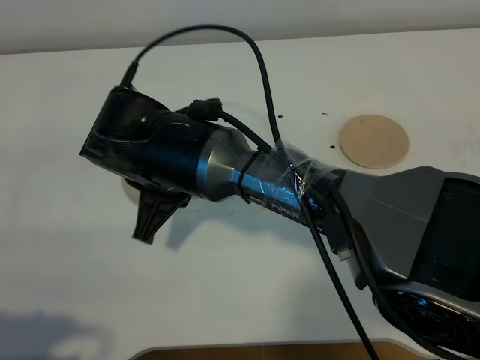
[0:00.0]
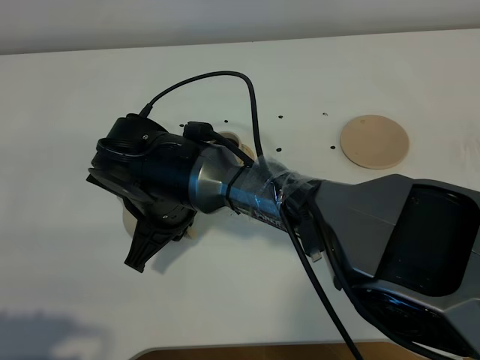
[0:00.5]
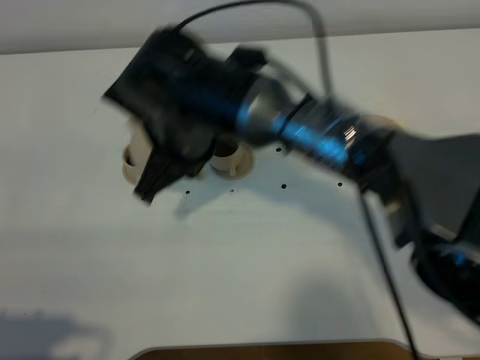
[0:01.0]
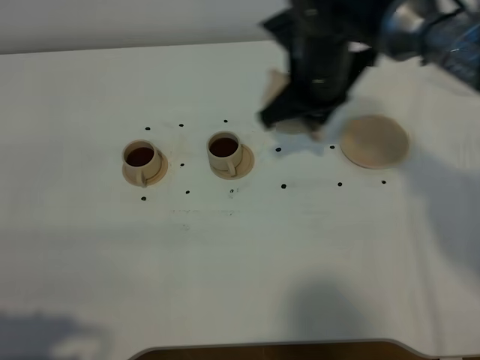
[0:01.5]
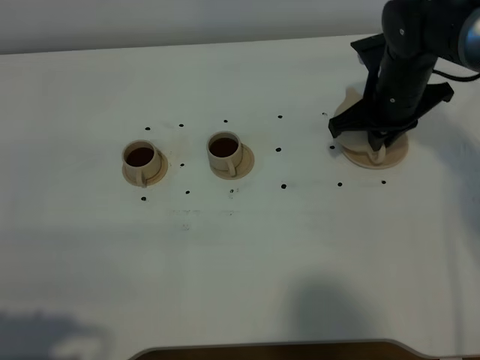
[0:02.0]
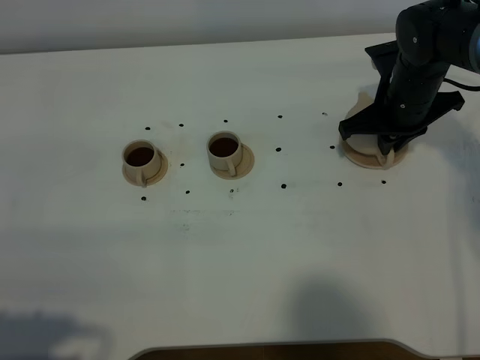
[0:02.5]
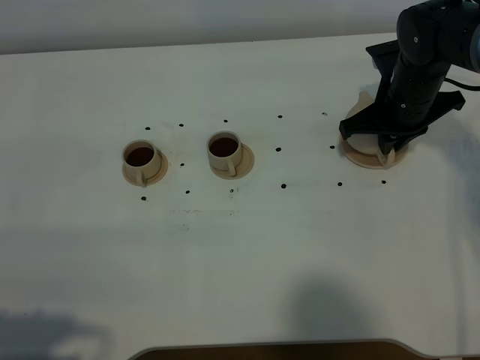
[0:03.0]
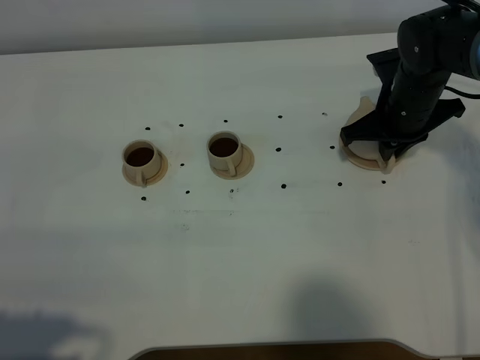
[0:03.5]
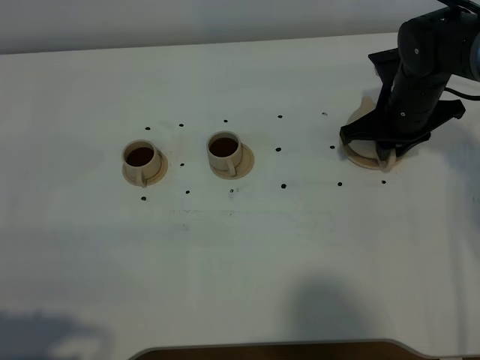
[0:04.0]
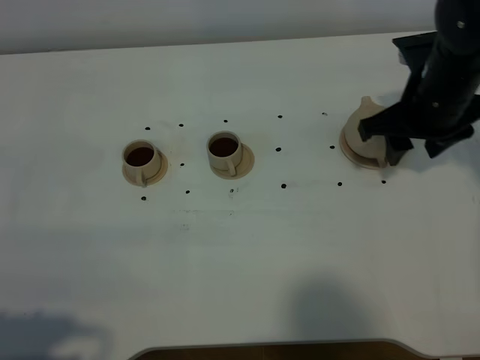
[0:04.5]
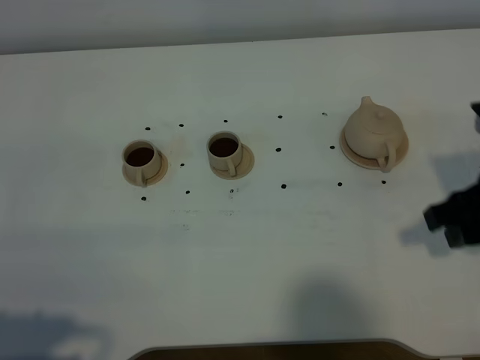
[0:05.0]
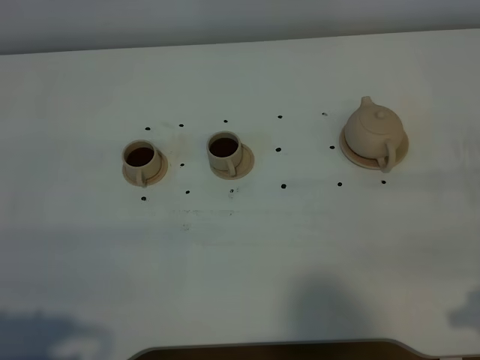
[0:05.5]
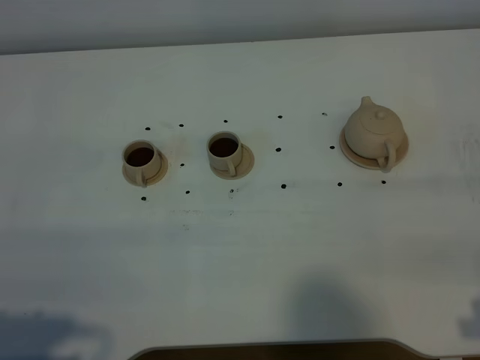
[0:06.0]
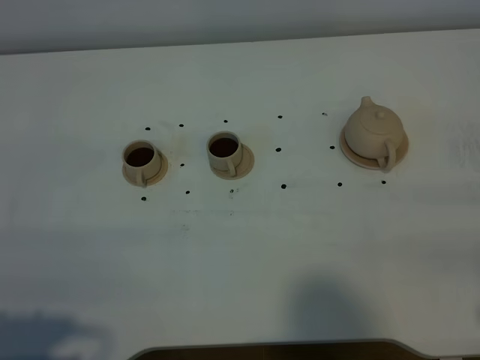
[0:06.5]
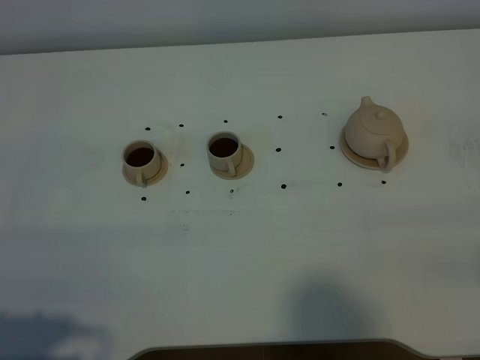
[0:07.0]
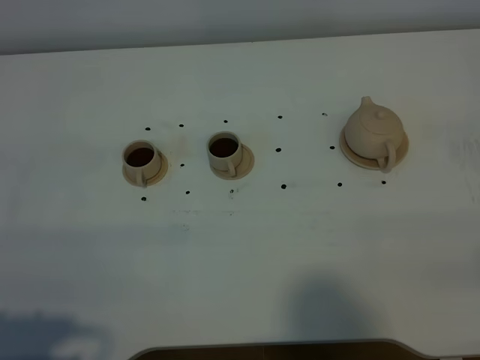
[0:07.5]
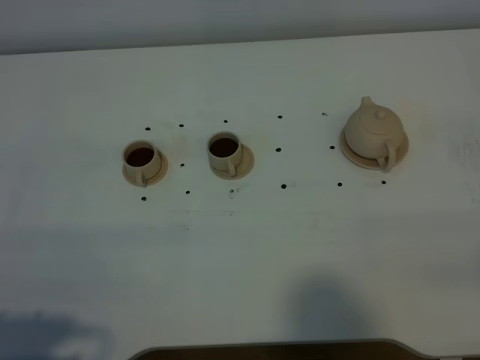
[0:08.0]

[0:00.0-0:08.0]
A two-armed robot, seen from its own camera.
Task of the whole recording: grasp the brown teapot and pour the tea into the two brown teacups one by one, put the brown teapot back in its original place.
0:00.0 to 0:02.0: The right gripper goes about 30 cm to the right.
0:02.0 to 0:04.0: The right gripper opens its fingers.
0:04.0 to 0:06.0: The right gripper travels backward by some 35 cm, and opens its fingers.

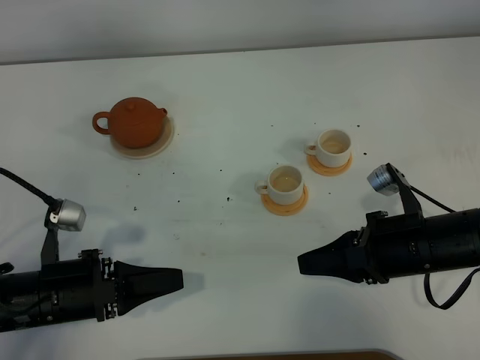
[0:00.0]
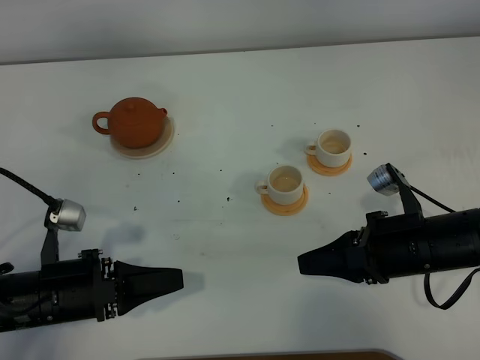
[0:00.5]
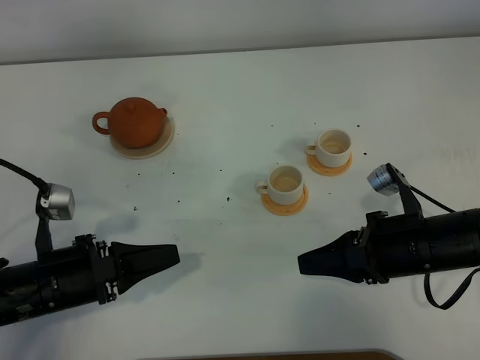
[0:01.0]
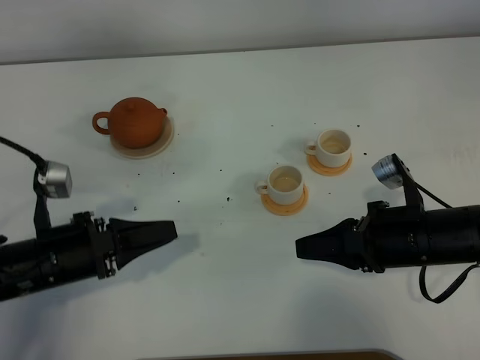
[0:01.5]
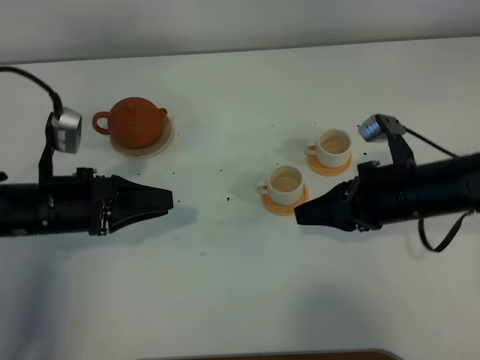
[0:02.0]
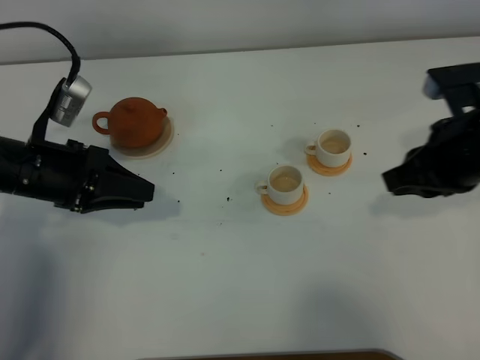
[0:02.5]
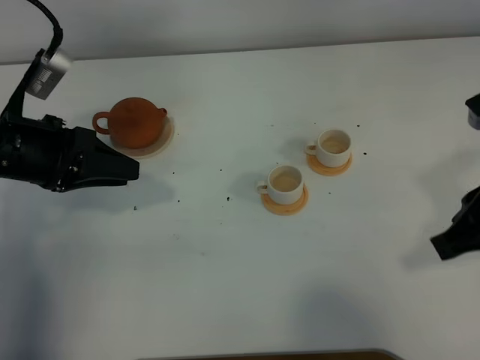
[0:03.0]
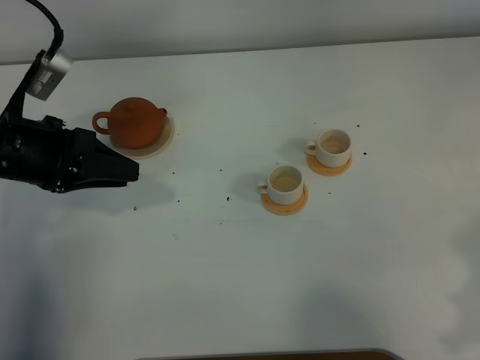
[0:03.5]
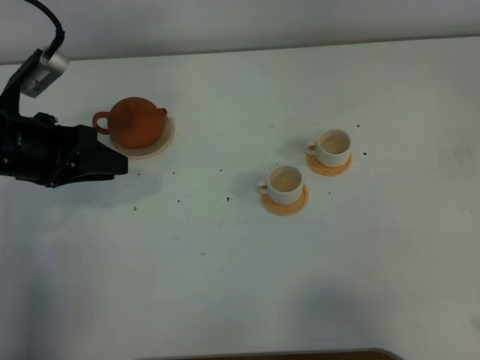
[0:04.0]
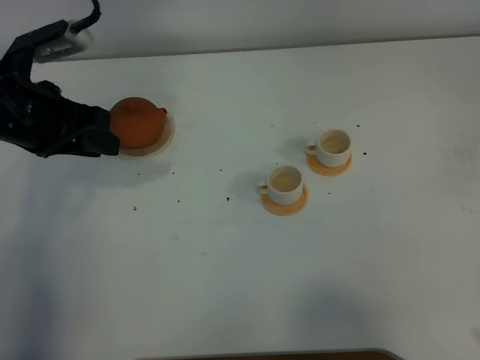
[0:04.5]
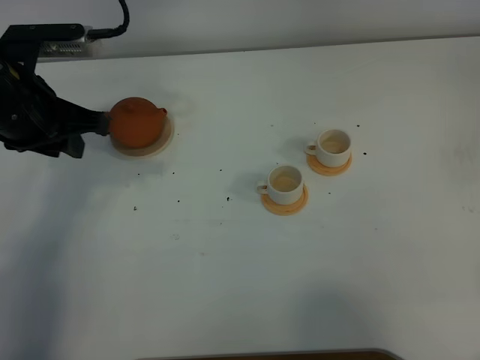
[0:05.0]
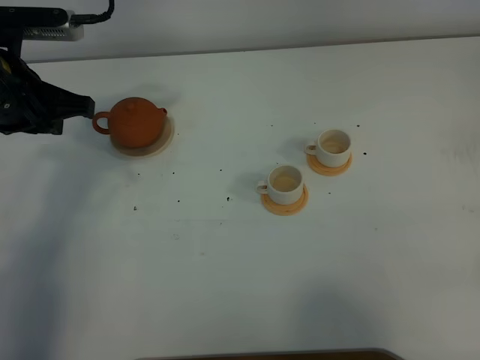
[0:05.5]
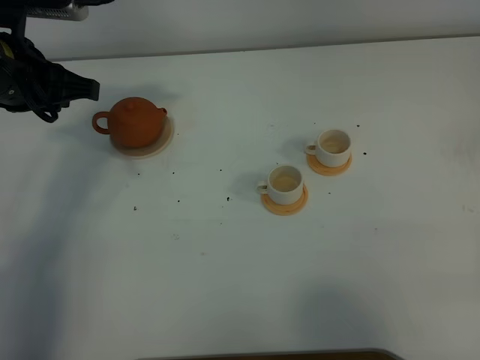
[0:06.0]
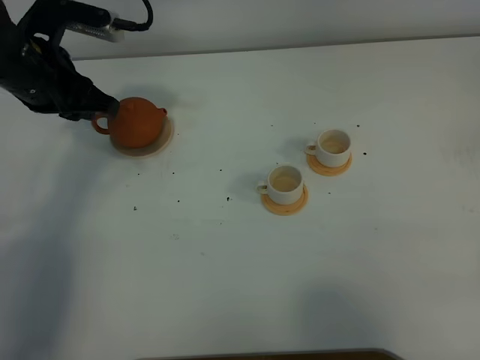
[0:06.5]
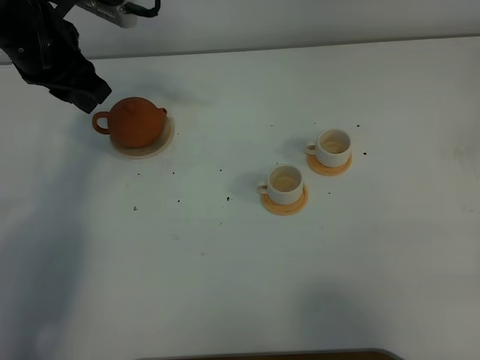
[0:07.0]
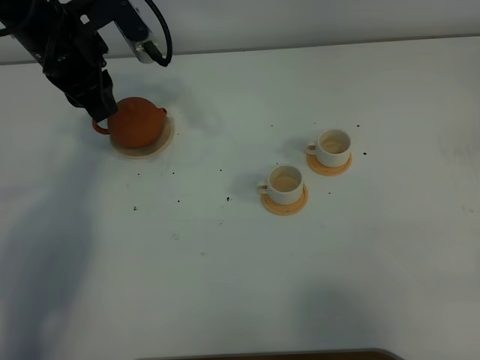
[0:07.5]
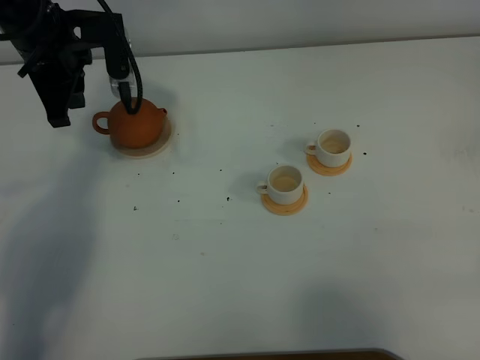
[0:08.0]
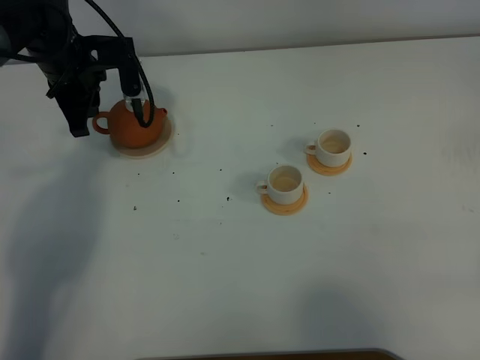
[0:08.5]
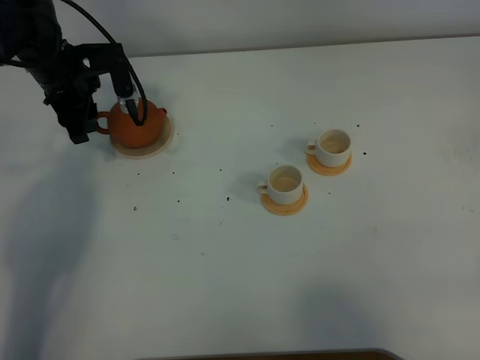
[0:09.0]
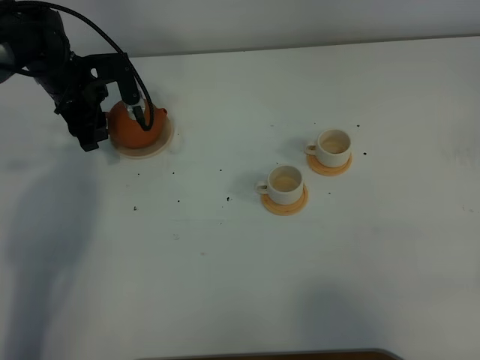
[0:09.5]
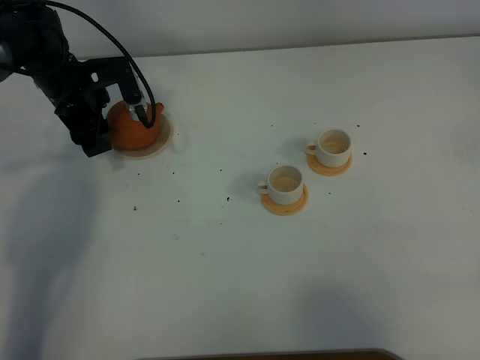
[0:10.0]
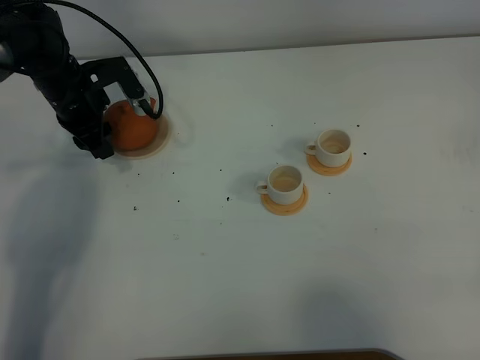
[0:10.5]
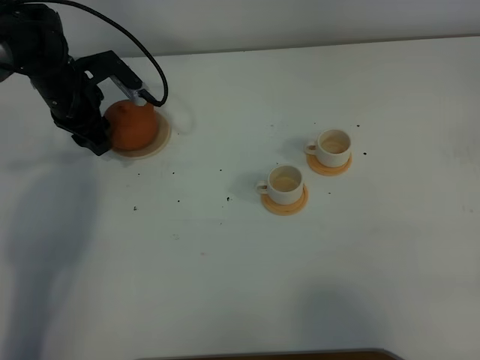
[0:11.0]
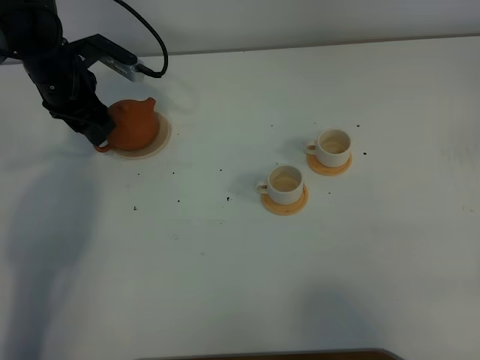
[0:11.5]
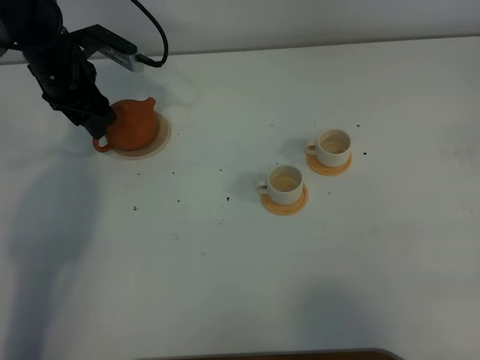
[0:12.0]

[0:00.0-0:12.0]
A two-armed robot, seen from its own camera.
Task of the whole recording: grasp the brown teapot and pour the tea into the two white teacups one by one, put the brown teapot back in its original place.
0:00.0 to 0:02.0: The left gripper moves forward, roughly 10 cm, while the right gripper heads forward, covering about 5 cm.
0:02.0 to 0:04.0: The right gripper heads backward, to the right and upward, covering roughly 25 cm, while the left gripper shifts about 5 cm upward.
0:04.0 to 0:06.0: The left gripper goes approximately 5 cm upward.
0:06.0 to 0:08.0: The left gripper shifts roughly 10 cm forward.
0:08.0 to 0:10.0: The left gripper travels downward by some 10 cm, and opens its fingers.

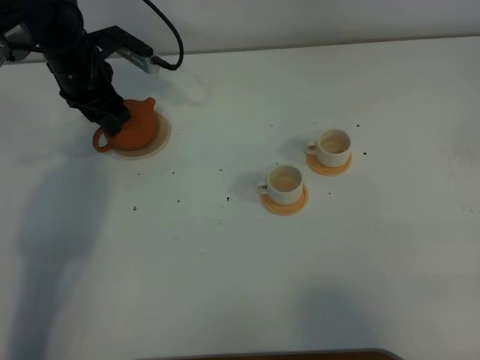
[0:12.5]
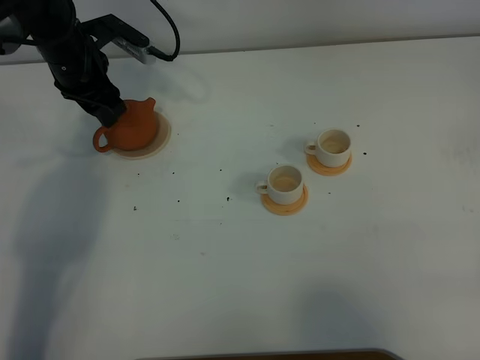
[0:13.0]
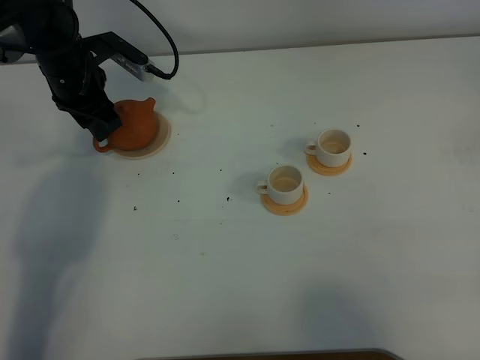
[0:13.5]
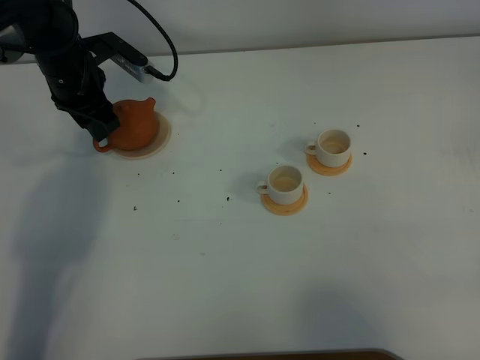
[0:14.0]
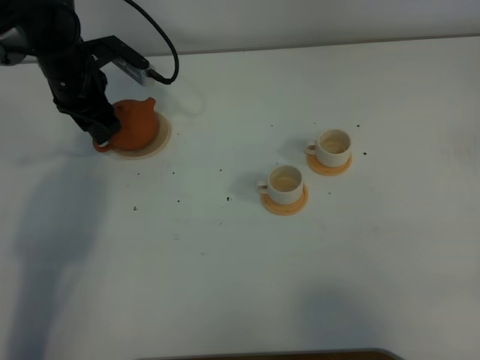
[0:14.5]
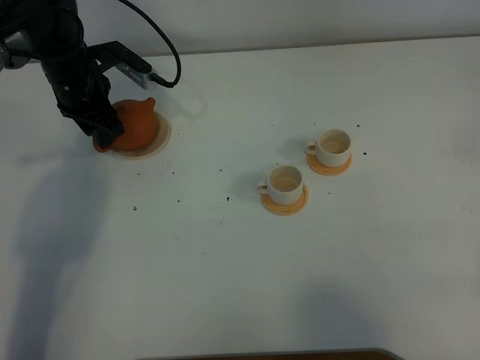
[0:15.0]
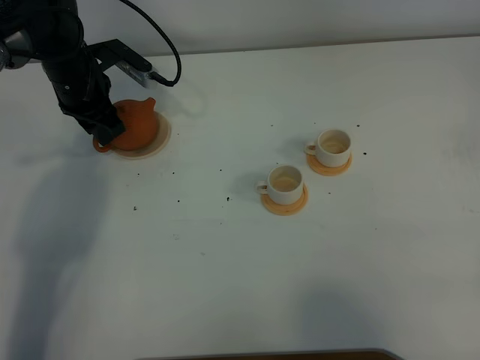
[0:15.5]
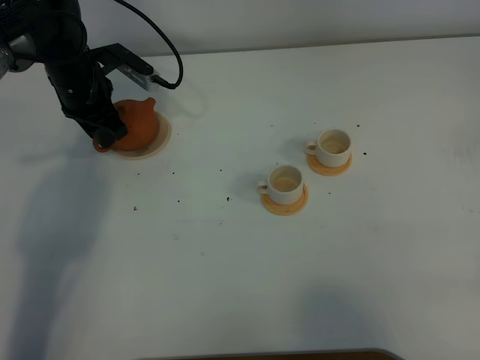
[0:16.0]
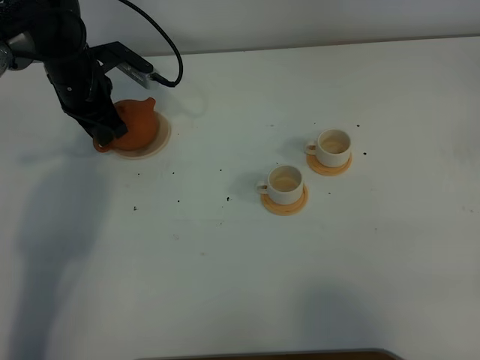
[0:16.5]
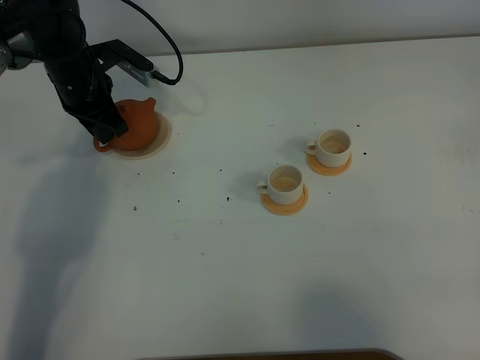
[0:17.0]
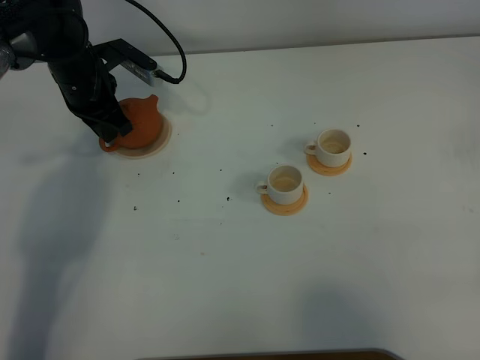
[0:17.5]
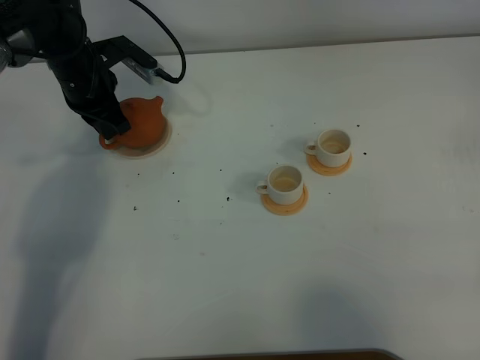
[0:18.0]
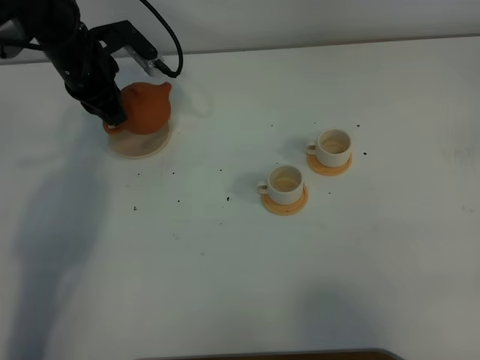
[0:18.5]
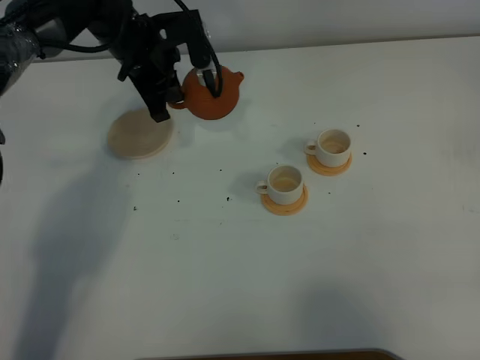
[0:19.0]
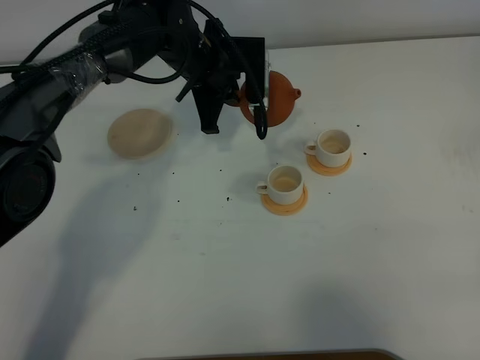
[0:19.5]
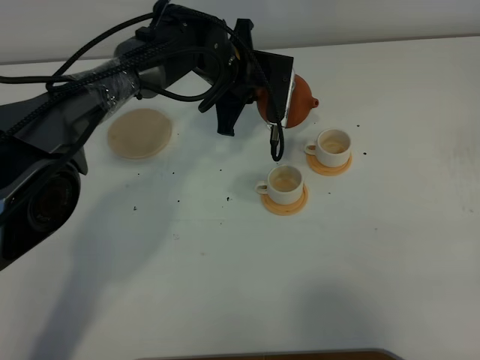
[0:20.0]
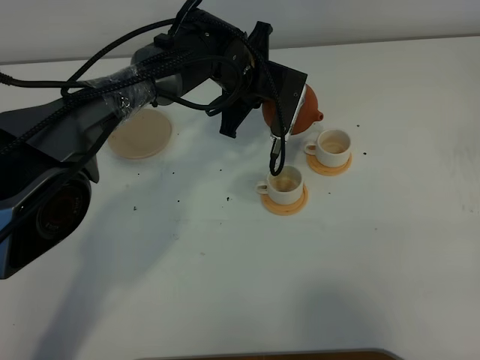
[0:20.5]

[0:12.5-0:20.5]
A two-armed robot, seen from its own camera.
Task of the whole recording: grasp the brown teapot and pour the tea into the two white teacups one by one, put the brown teapot back in its original place.
Step, 0:12.5 to 0:18.5: Pick up the teapot with the left gripper.
0:12.5 to 0:14.5: There are only small adjustments of the grippers.
0:14.5 to 0:16.5: The left gripper closes.
0:16.5 to 0:18.5: The grippers stay close to where they were, moving slightly.
0:18.5 to 0:20.5: The left gripper goes about 20 cm to the right.
